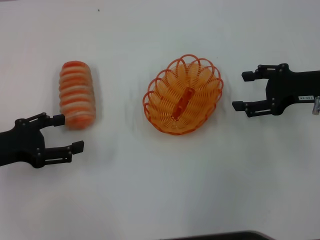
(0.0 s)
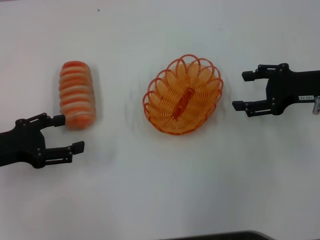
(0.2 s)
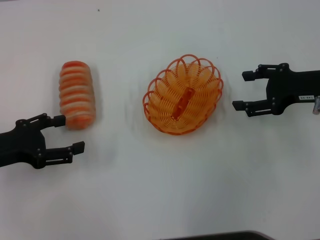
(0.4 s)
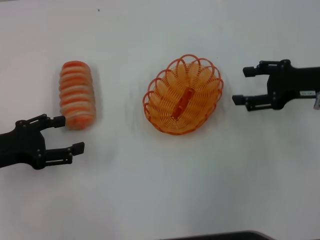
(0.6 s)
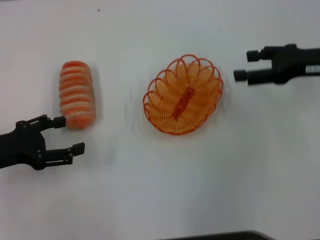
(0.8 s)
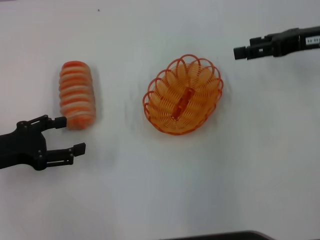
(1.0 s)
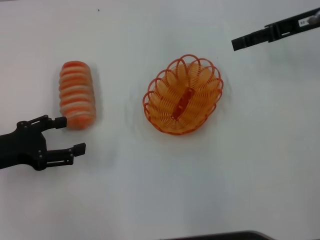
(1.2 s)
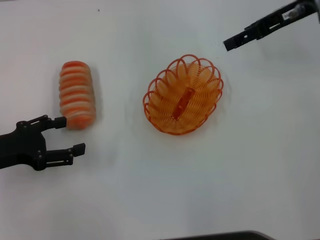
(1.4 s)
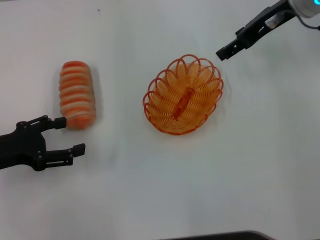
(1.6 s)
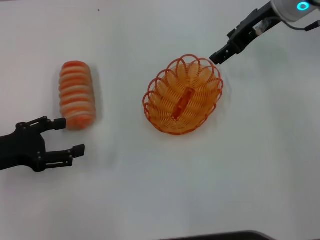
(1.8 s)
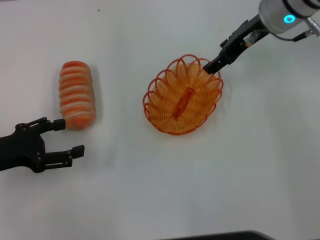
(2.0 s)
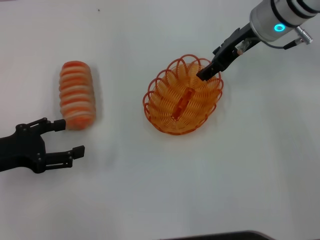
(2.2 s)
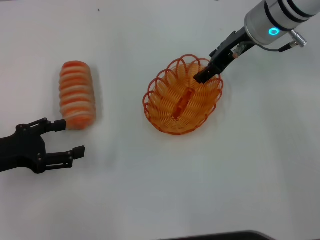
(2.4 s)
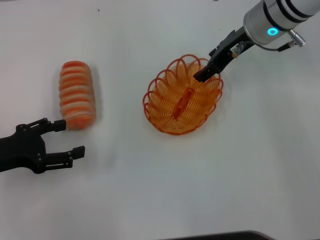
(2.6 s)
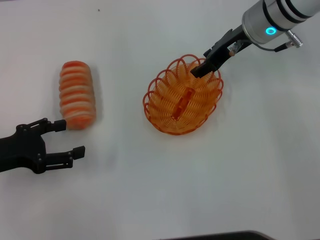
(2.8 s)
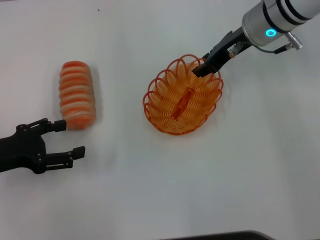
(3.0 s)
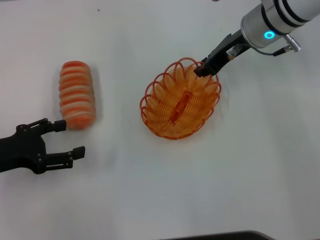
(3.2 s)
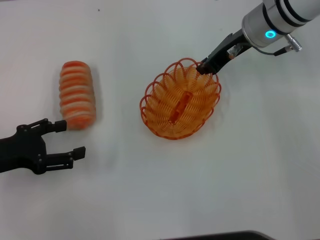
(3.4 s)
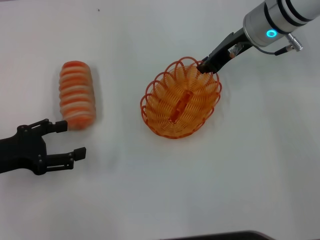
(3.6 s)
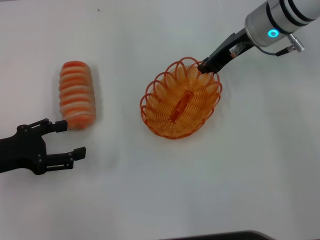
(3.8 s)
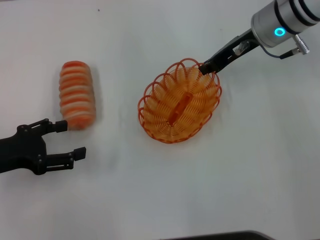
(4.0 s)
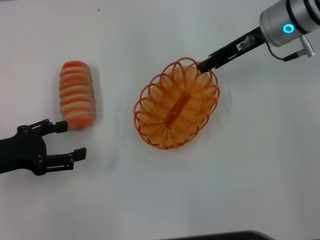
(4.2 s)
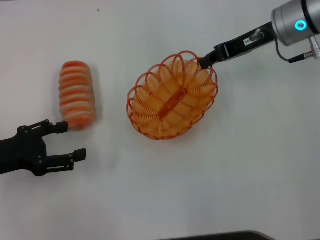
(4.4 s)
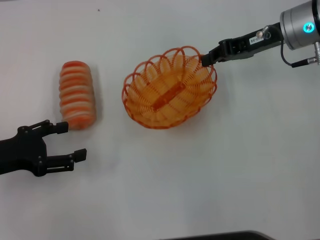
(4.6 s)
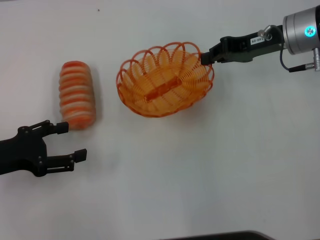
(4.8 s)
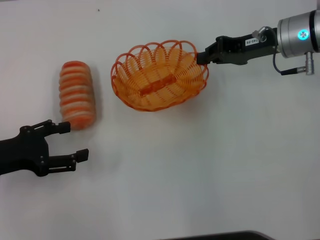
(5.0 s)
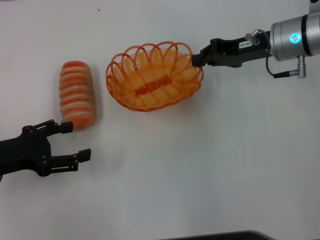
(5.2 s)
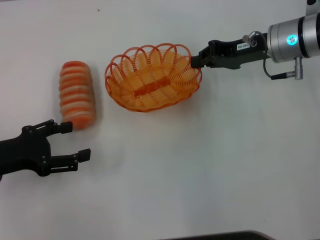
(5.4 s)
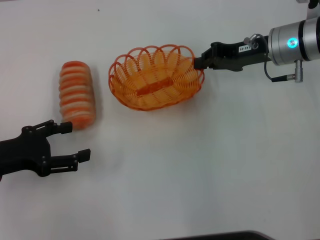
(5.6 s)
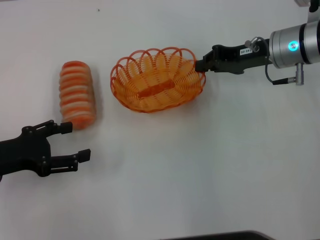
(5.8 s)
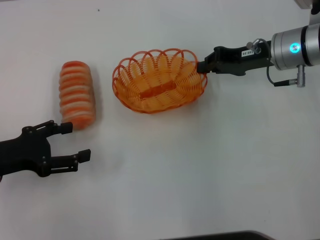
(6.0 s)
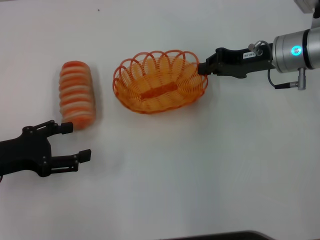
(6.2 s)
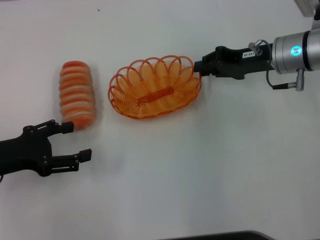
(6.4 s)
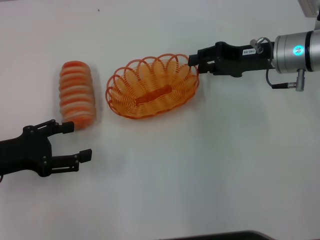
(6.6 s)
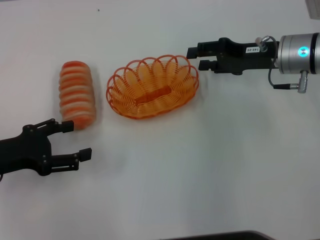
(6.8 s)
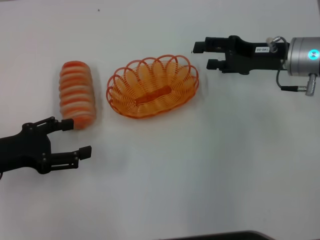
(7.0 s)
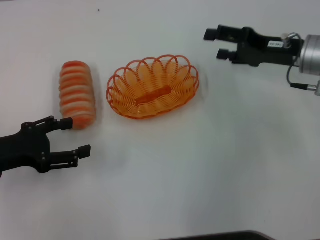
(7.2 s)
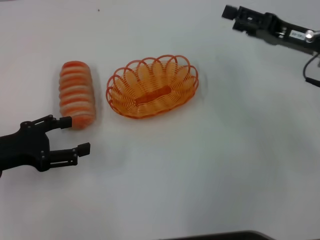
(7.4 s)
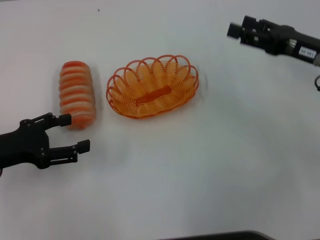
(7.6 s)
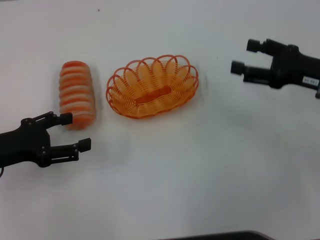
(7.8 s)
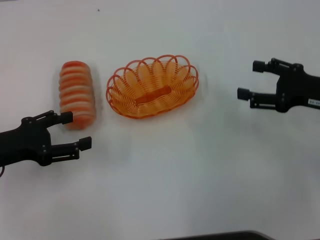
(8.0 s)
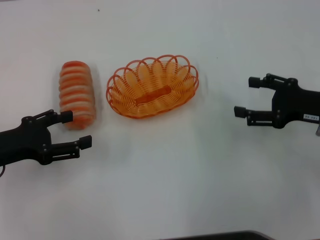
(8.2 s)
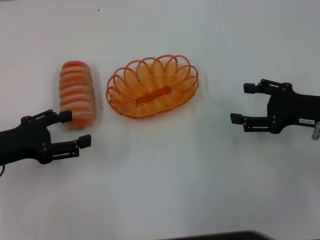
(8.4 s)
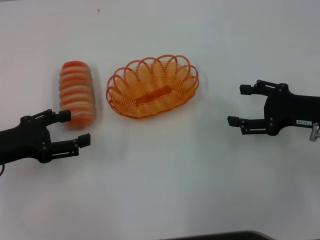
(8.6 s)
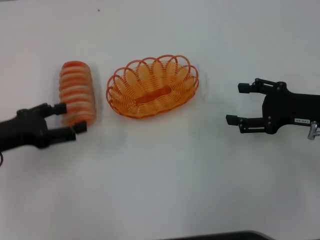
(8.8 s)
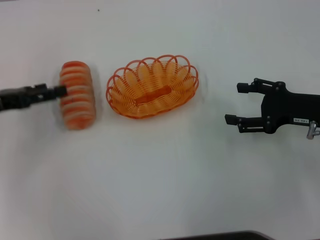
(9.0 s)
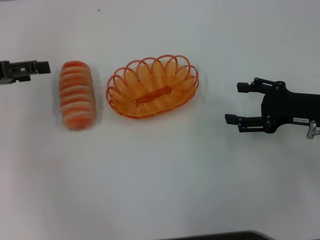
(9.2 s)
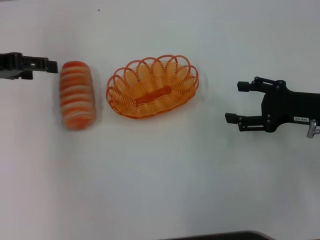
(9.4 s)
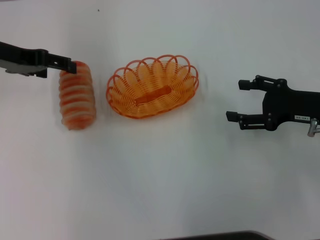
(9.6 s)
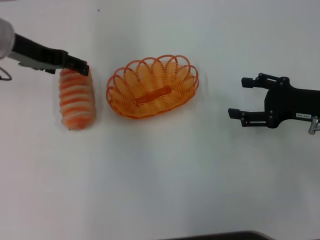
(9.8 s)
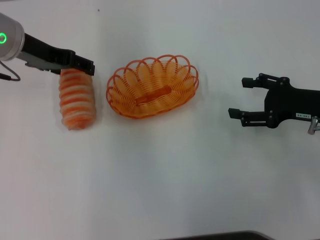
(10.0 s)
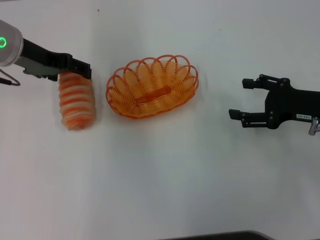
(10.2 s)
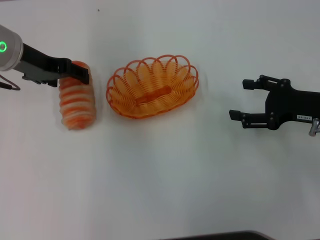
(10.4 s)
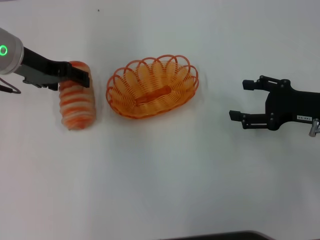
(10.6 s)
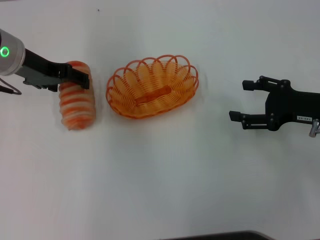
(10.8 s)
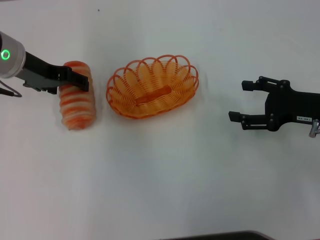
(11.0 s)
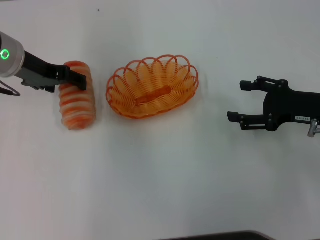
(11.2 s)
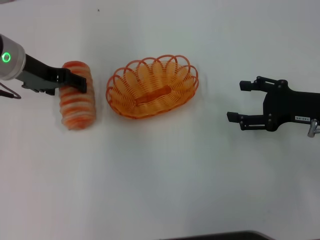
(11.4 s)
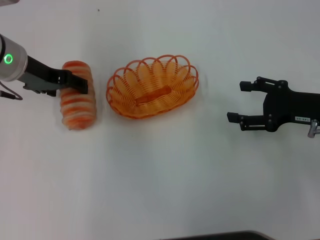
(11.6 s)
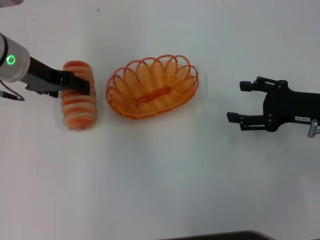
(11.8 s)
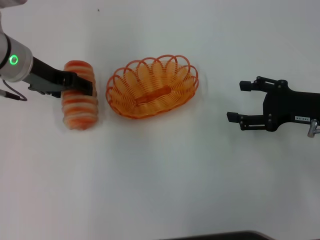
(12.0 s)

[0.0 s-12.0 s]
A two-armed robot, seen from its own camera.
Step, 0.0 to 4.2 s: Pick up the basket with the right gripper.
Step, 4.6 to 7.4 s: Place the basket in the center of view with the right gripper.
0.0 to 1.6 s: The right gripper goes roughly 15 cm forward, upward and to the left.
1.6 to 3.0 s: The right gripper travels downward by some 5 cm.
3.0 to 4.4 s: The right gripper closes up.
4.4 to 6.0 s: The right gripper changes place by about 5 cm.
6.0 to 7.6 s: The right gripper moves backward and to the right, about 10 cm, and opens up.
7.6 to 9.0 s: The right gripper shifts by about 5 cm; the left gripper travels forward by roughly 5 cm.
9.0 to 10.4 s: The left gripper moves to the right, forward and upward, some 15 cm.
10.4 to 12.0 s: There are only small adjustments of the grippers.

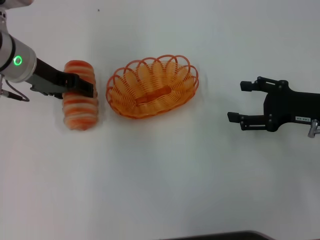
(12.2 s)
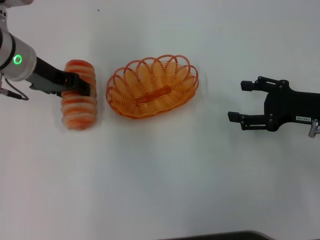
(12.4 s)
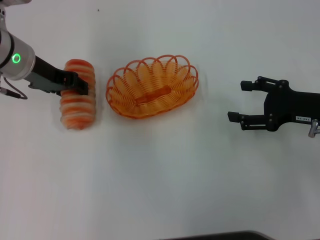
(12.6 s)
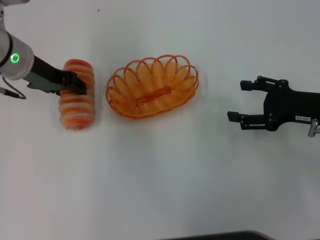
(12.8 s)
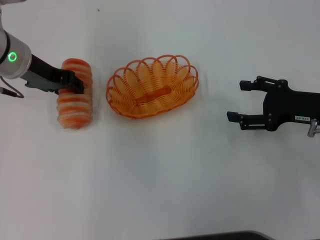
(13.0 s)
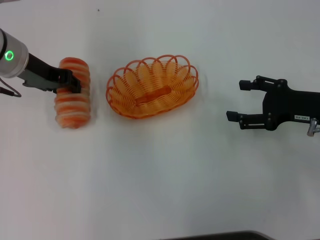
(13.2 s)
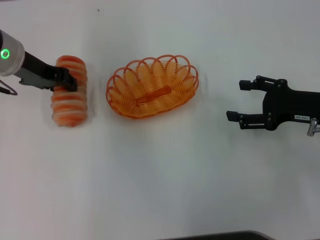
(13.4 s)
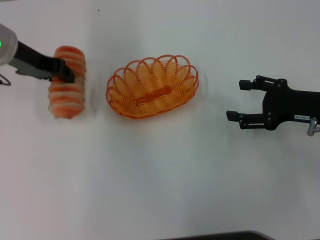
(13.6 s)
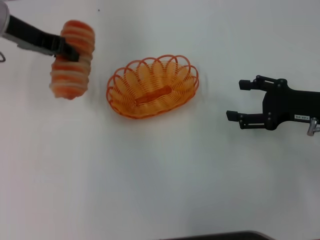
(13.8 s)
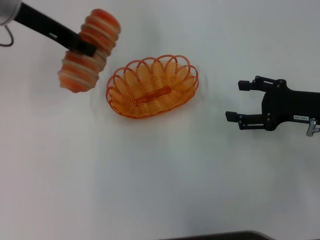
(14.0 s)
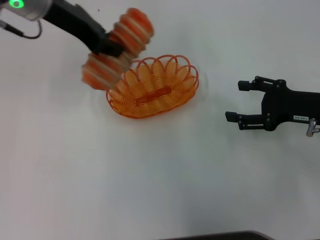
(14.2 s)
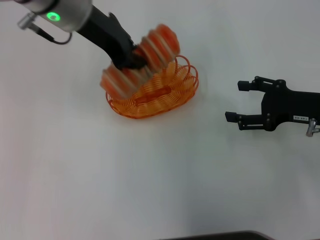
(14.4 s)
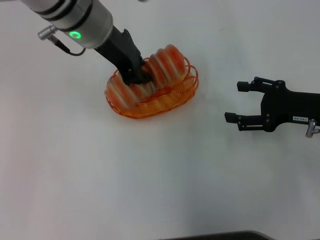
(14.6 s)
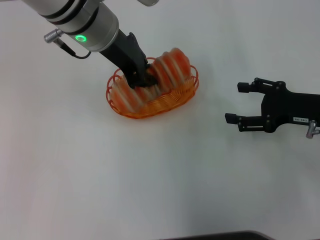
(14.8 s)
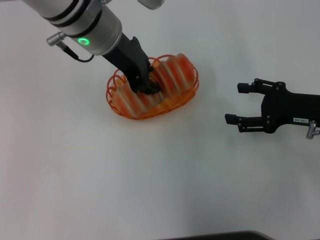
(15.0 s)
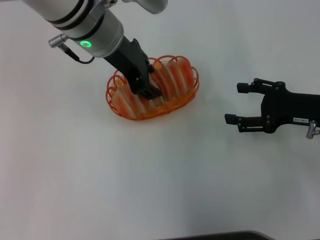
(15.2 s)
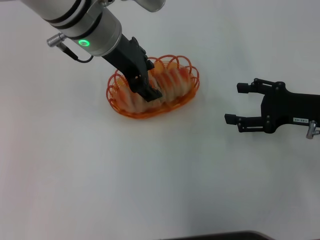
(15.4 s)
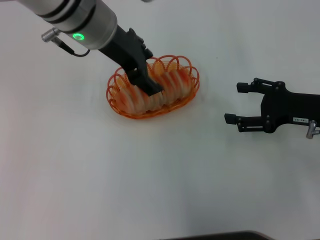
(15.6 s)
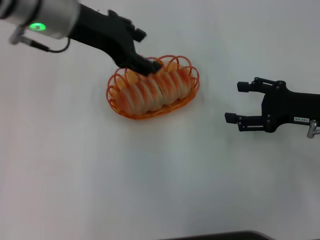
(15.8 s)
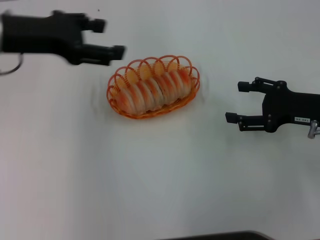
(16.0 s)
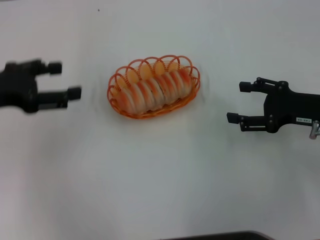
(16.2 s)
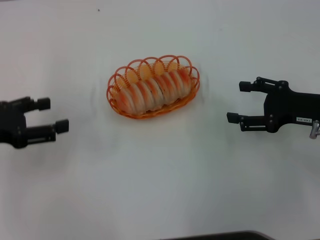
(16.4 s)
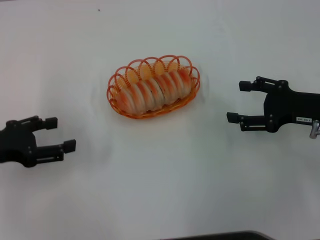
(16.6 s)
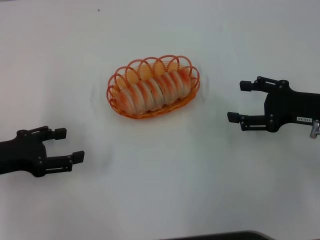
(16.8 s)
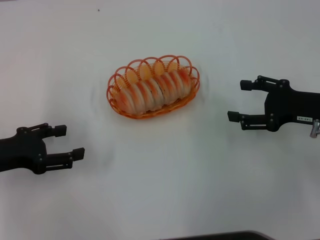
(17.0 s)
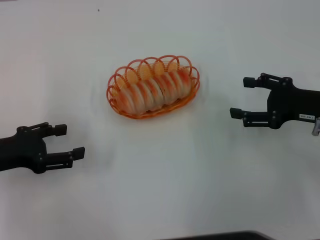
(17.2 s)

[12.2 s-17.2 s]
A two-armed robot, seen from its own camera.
Step, 13.6 to 15.6 s: Place the long bread into the basket with the left gripper.
12.2 to 13.8 s: The left gripper travels upward by roughly 5 cm, and closes.
13.8 to 15.6 s: The left gripper is displaced to the right by about 15 cm, and opens.
15.6 to 17.2 s: The left gripper travels to the left, backward and downward by some 30 cm.

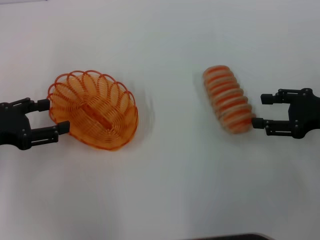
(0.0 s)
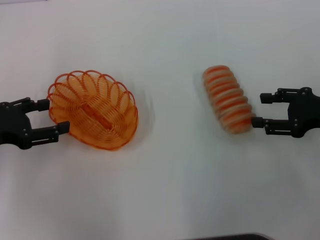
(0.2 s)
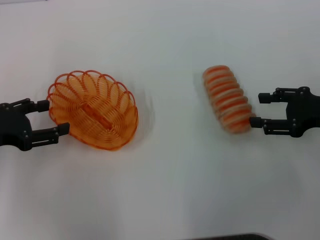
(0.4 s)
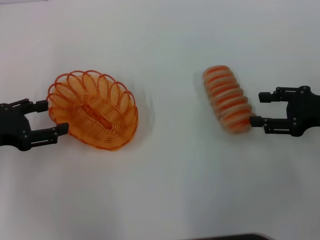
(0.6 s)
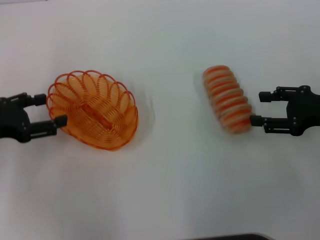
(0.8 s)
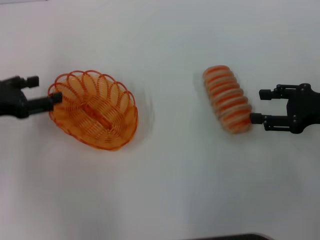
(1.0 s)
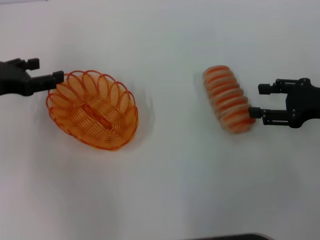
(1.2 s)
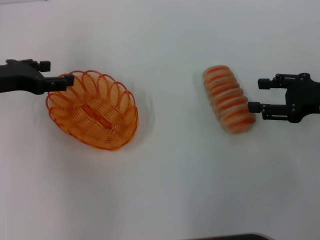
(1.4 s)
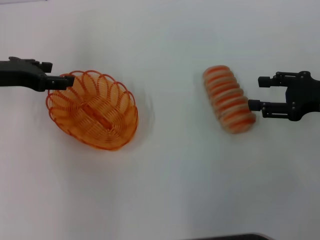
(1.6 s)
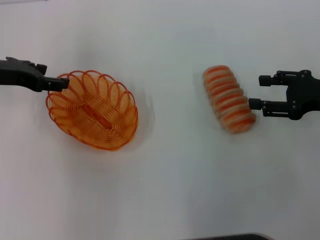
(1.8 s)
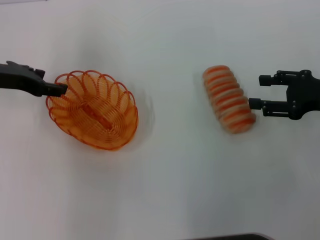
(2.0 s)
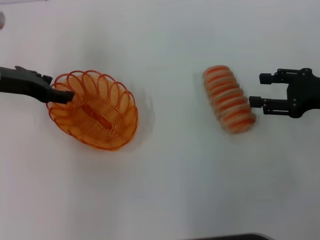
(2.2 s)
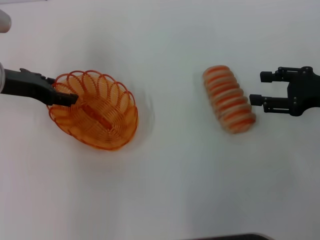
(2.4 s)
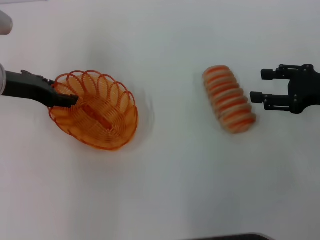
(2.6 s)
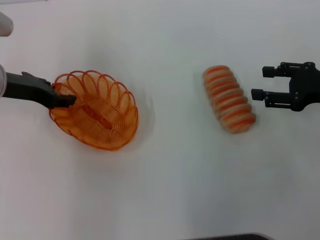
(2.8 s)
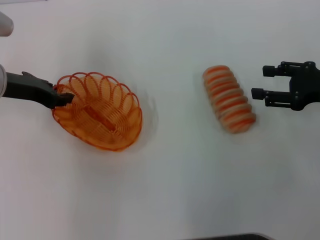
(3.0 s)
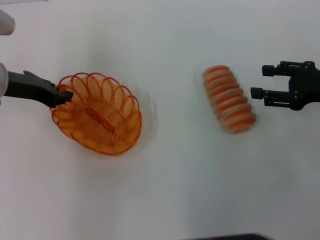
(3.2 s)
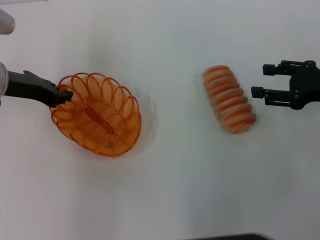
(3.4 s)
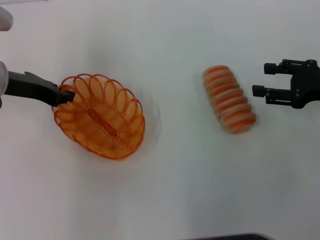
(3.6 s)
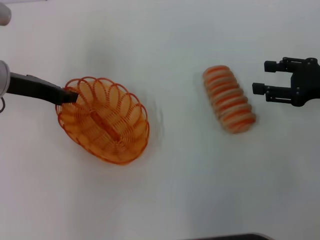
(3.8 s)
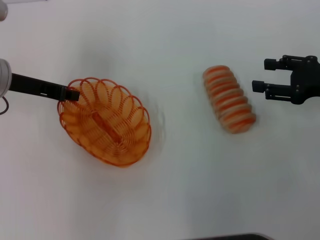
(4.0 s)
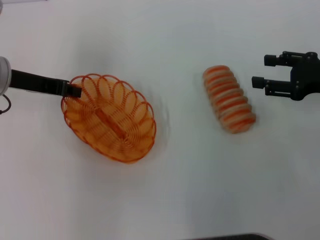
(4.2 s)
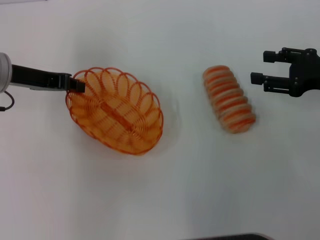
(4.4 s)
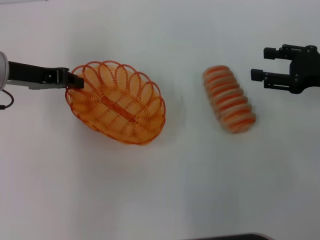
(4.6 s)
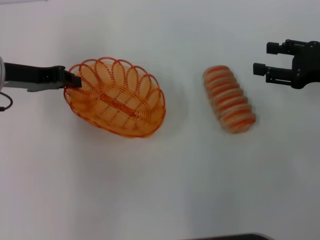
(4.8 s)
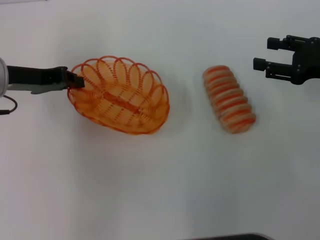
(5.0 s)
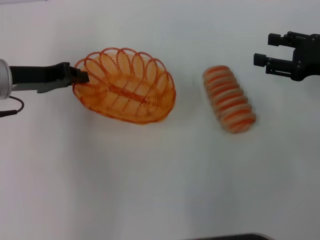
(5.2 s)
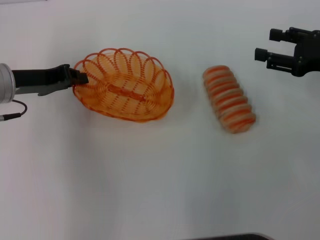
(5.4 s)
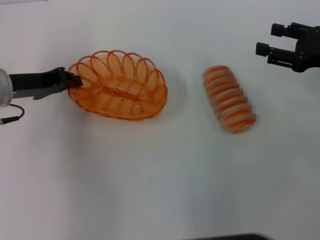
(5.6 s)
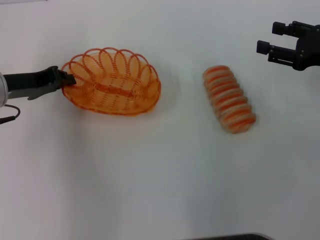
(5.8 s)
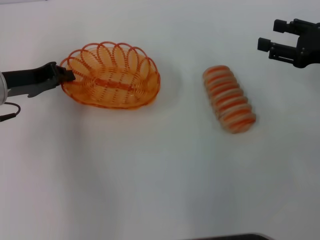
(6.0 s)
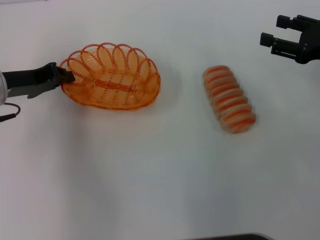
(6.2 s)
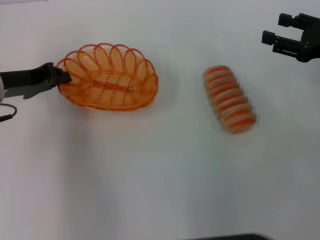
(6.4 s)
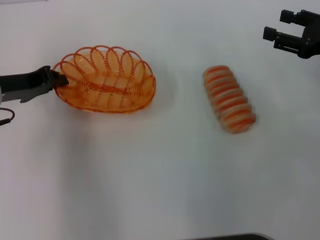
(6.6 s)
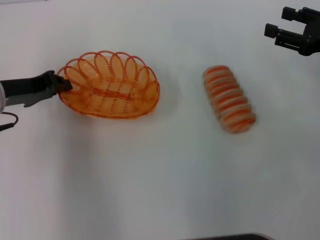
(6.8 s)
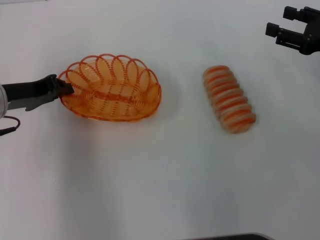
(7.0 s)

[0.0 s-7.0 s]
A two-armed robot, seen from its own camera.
Step, 0.0 to 4.2 s: Pick up the basket with the left gripper.
0.0 to 1.4 s: The left gripper goes roughly 10 cm forward.
1.4 to 2.8 s: The grippers make only small movements.
2.8 to 4.2 s: The left gripper closes its fingers.
5.6 to 7.0 s: The grippers make only small movements.
